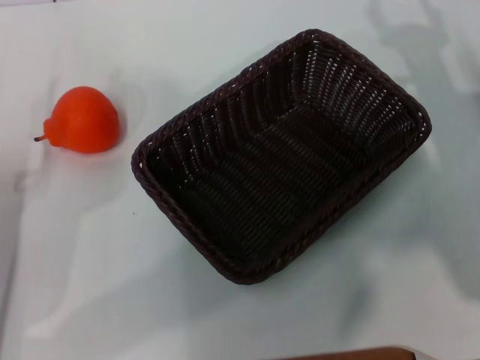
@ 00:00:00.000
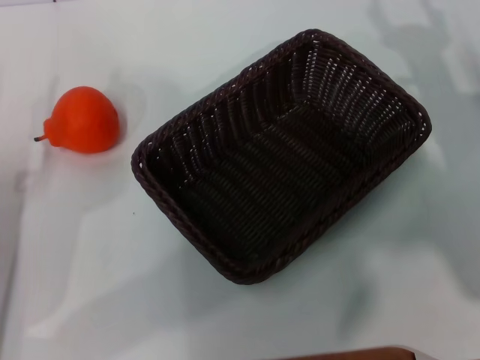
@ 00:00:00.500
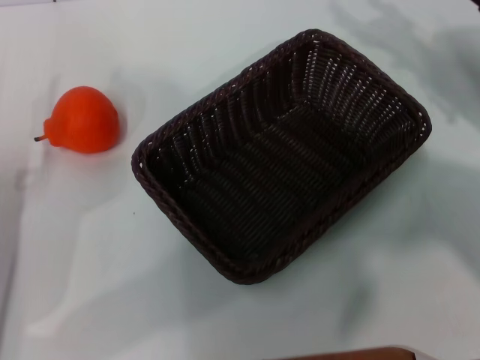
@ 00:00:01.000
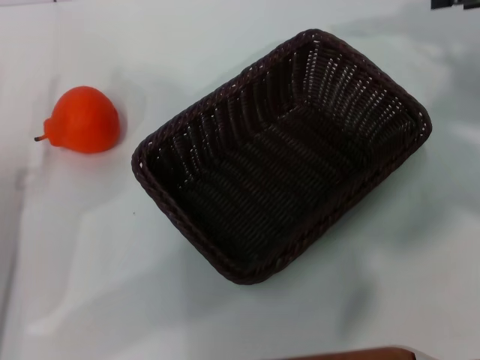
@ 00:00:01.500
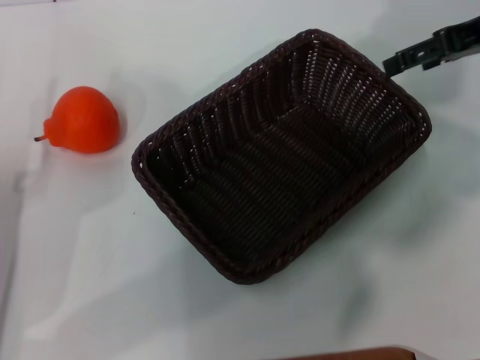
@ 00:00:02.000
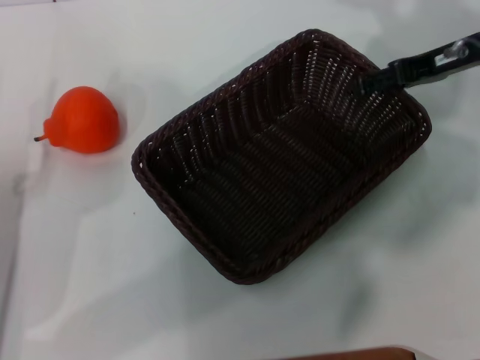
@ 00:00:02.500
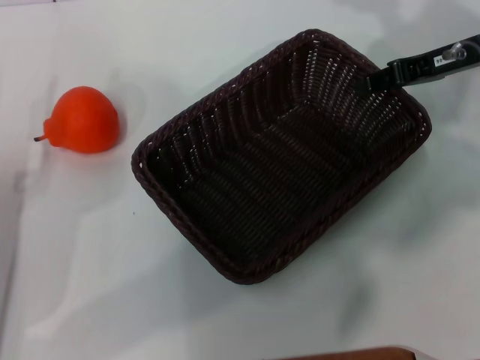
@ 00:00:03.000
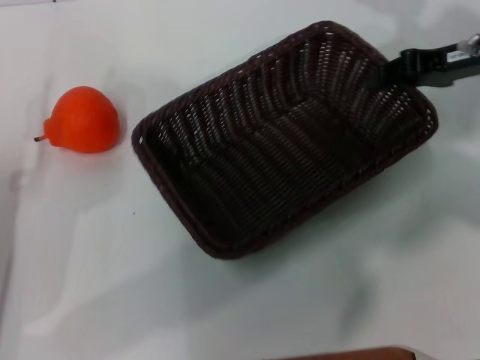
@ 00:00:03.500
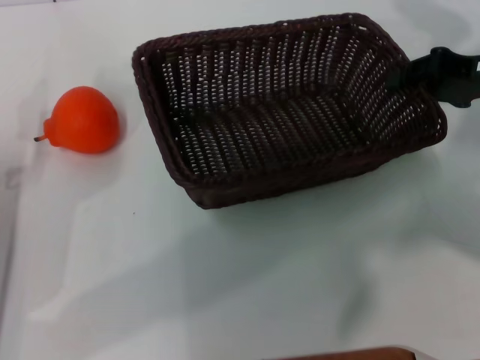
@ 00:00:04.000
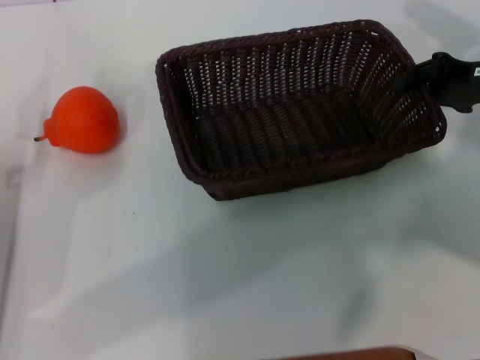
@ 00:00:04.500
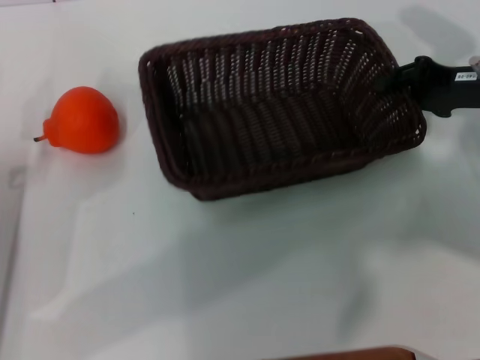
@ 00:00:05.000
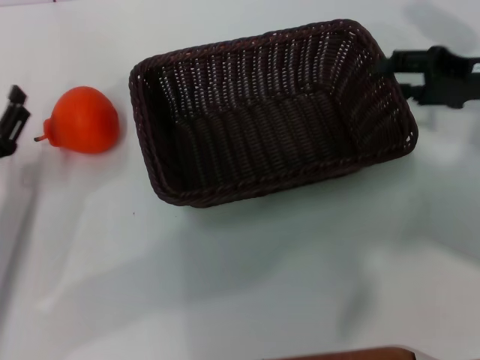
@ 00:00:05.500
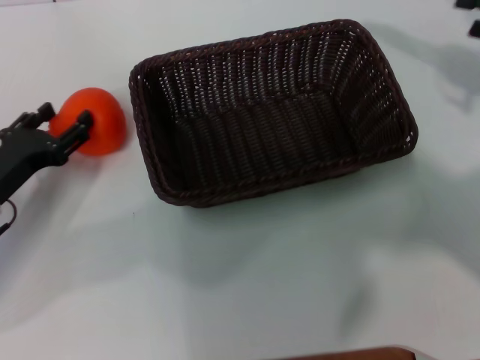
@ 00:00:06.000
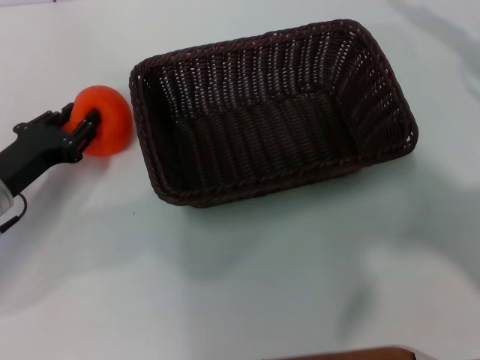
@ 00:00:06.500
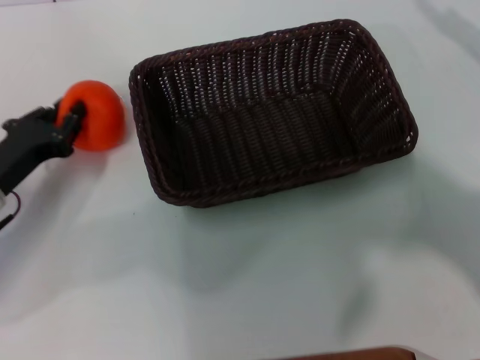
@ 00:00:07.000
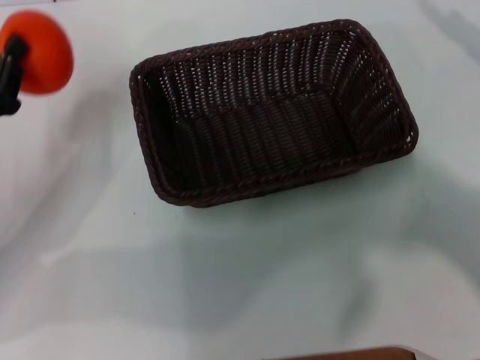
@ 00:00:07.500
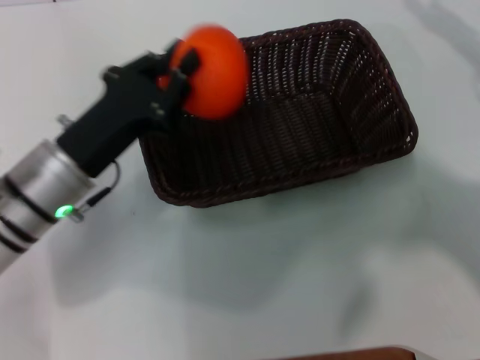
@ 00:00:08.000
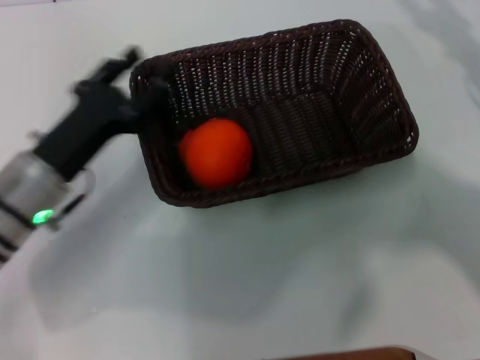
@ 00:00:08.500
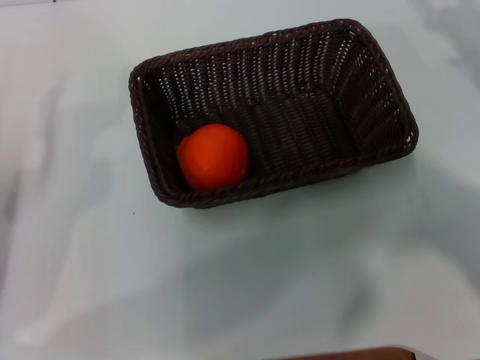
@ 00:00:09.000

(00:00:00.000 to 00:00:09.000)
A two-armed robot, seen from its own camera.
Task of the whole recording: the right gripper pick up the black basket and place it horizontally in the middle of the table, the left gripper pick up the orange and place it into the black basket.
Step, 00:00:00.000 - 00:00:03.500: Pick up the dark basket with the right gripper.
Step, 00:00:04.000 - 00:00:05.500: Place the dark basket in the center of view with the right gripper.
Step, 00:00:06.000 - 00:00:07.000: Pick up the orange with the left gripper.
Step, 00:00:07.500 - 00:00:08.000: Place the orange into the dark basket with the left gripper.
00:00:00.000 - 00:00:02.000: The right gripper heads upward and forward, covering roughly 15 cm.
00:00:02.000 - 00:00:04.500: The right gripper moves downward, about 10 cm, and closes.
00:00:04.500 - 00:00:07.000: The left gripper shifts by about 5 cm, and closes its fingers. Meanwhile the right gripper shifts roughly 10 cm to the right and backward, and opens its fingers.
00:00:07.000 - 00:00:09.000: The right gripper shifts by about 5 cm. Meanwhile the left gripper heads backward, covering roughly 5 cm, goes to the right and returns, about 10 cm each way, and opens.
